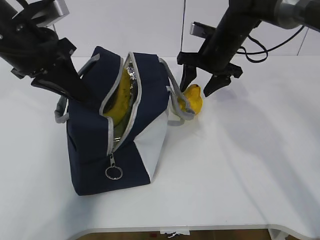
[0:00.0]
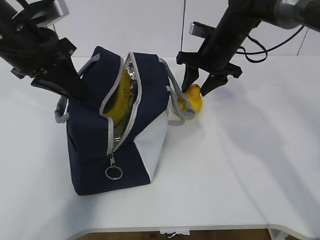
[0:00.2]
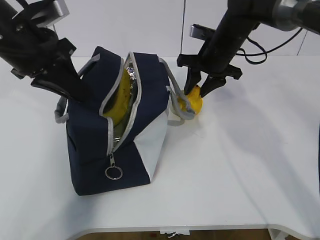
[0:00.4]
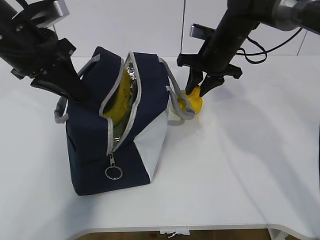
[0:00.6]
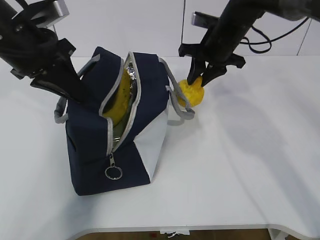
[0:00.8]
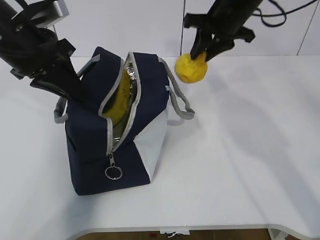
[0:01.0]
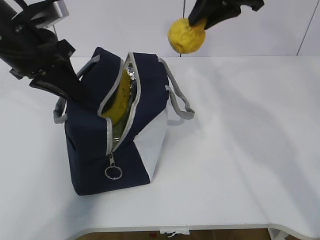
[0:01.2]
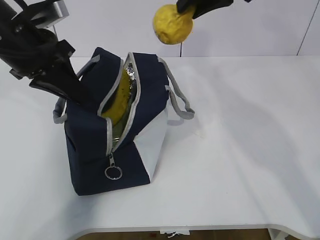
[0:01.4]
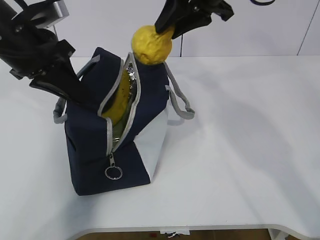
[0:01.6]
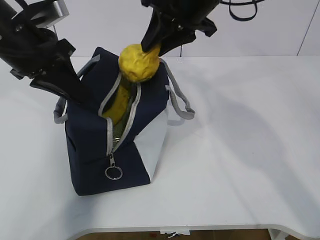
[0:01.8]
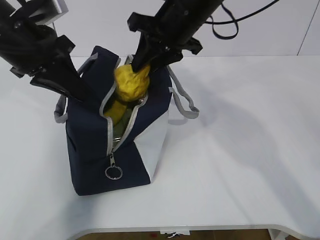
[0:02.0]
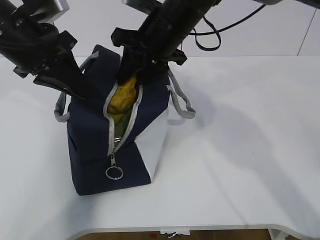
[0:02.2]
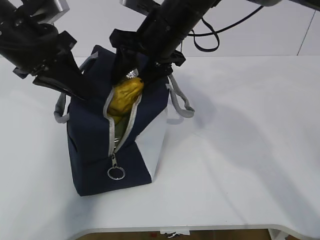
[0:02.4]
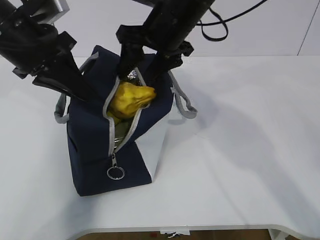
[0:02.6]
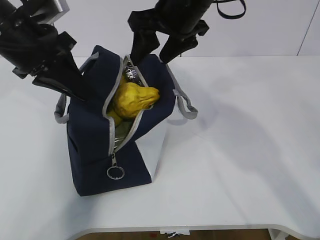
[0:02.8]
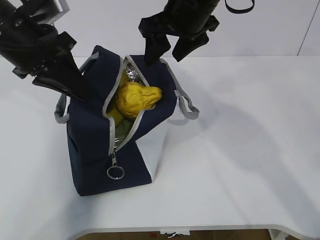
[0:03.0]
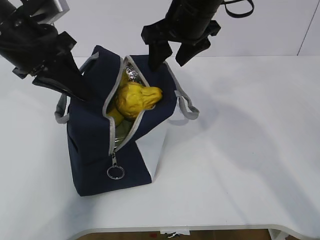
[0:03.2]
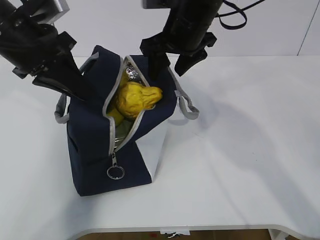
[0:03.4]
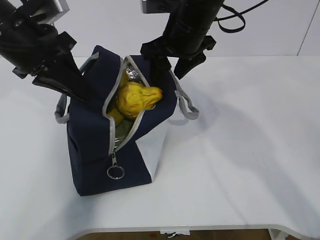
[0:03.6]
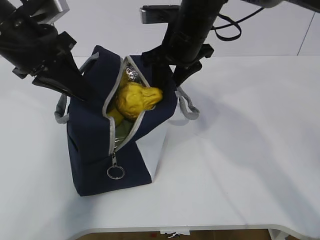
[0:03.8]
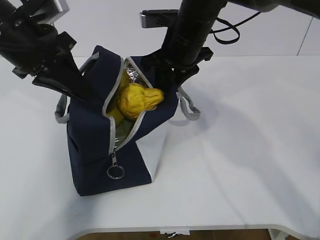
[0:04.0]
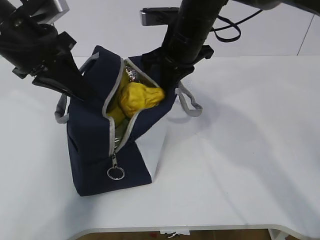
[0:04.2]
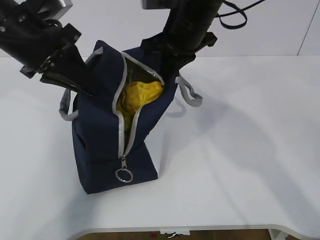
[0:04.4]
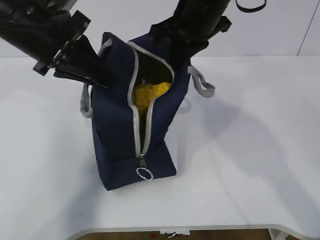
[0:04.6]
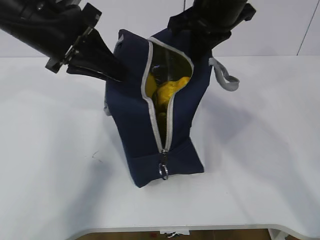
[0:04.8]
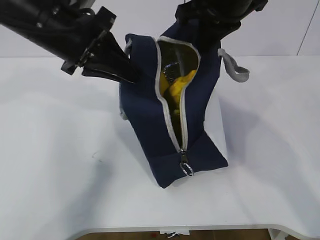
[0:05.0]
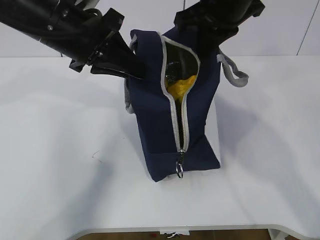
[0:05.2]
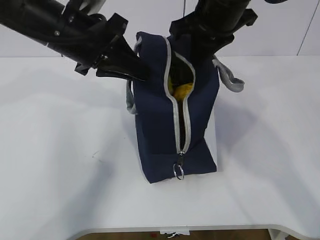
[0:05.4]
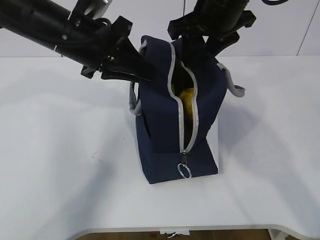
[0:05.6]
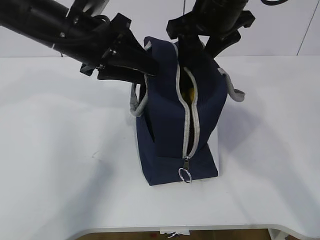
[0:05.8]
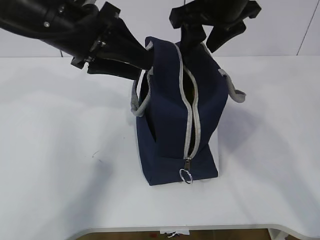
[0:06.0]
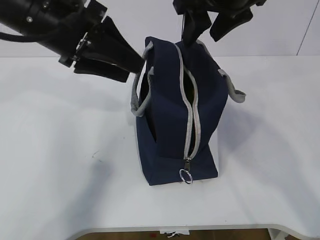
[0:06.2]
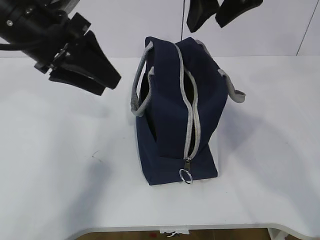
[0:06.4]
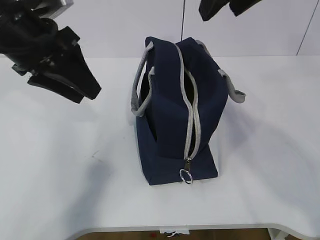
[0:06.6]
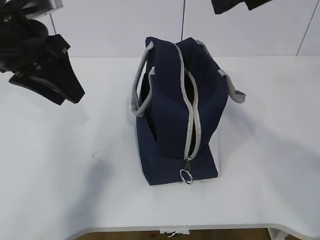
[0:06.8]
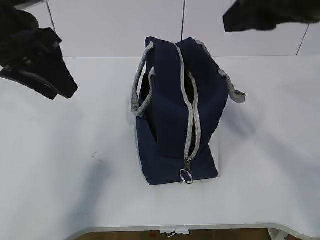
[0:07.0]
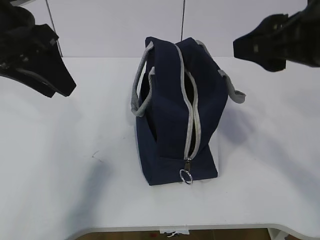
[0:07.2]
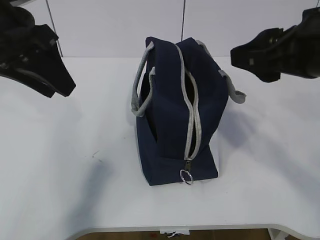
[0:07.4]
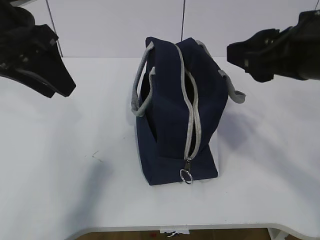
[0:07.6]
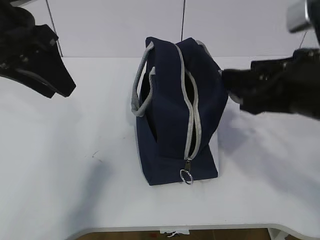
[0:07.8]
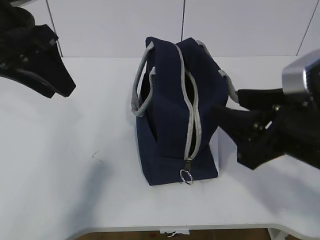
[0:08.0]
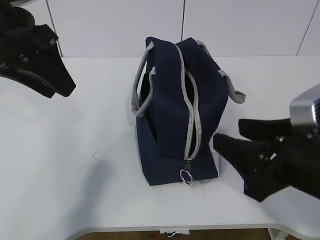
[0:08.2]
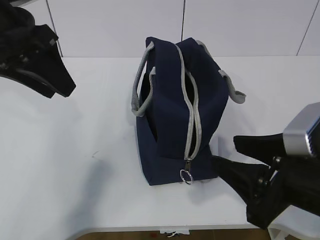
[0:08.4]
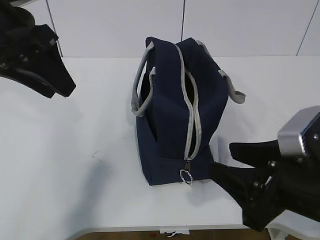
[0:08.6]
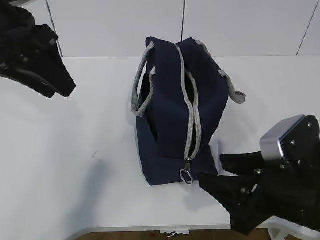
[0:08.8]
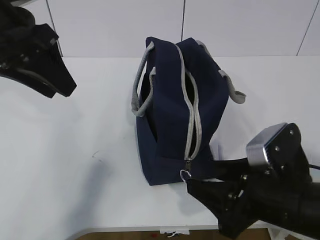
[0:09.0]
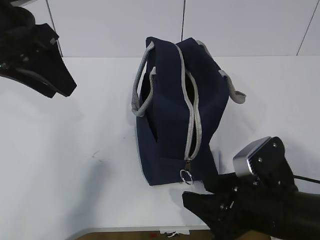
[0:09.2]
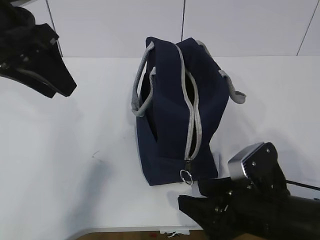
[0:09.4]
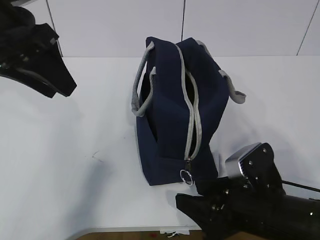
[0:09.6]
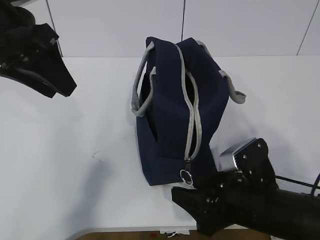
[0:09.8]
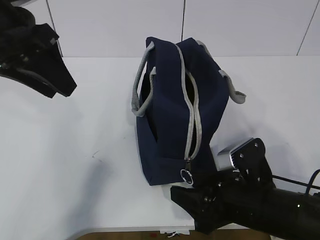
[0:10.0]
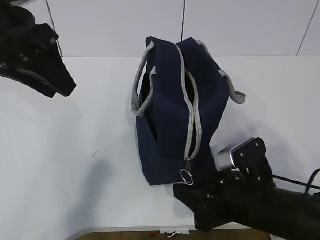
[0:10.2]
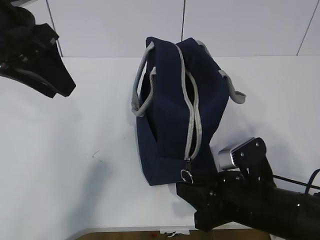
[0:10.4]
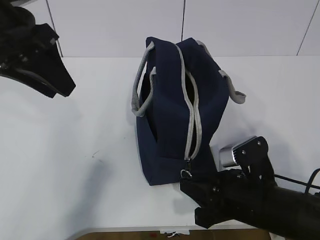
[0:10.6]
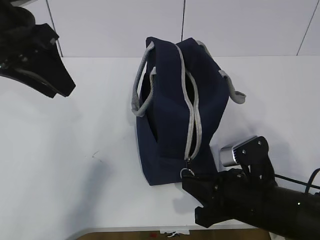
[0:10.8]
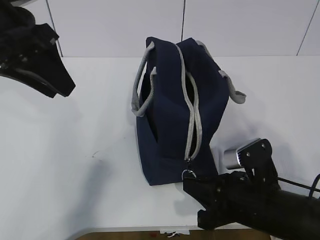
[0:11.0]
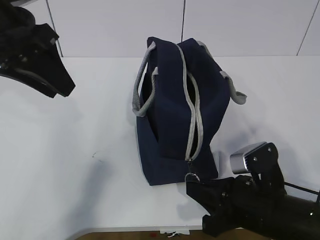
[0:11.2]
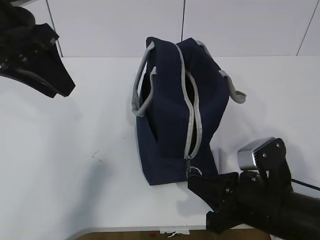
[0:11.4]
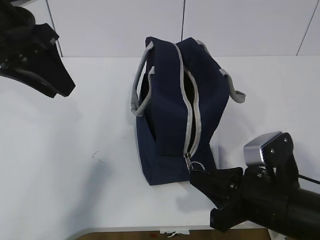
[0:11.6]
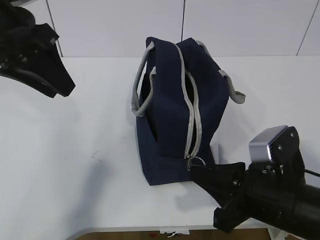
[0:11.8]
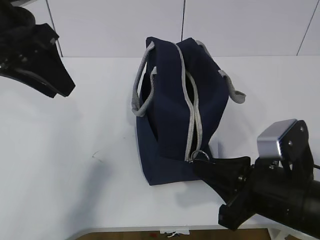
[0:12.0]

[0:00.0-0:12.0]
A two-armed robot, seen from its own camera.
Step, 0:00.0 to 0:00.8: Move the lunch bag to the right.
Step, 0:01.0 to 0:10.2: Grab the lunch bag with your left hand.
0:00.0 to 0:01.6: The right gripper heads upward and backward, covering about 15 cm, and closes.
0:01.6 to 0:03.0: The right gripper opens its fingers.
0:03.0 to 0:04.4: The right gripper closes its fingers.
0:04.4 to 0:06.0: The left gripper opens. Meanwhile the right gripper moves upward, about 5 cm, and opens up.
0:06.0 to 0:07.6: The left gripper is displaced to the left by roughly 5 cm. The right gripper heads backward and to the right, covering approximately 15 cm.
0:07.6 to 0:09.0: The right gripper travels downward by approximately 15 cm.
0:09.0 to 0:10.4: The right gripper shifts approximately 5 cm downward, and closes.
0:10.4 to 0:12.0: The right gripper moves upward, roughly 5 cm, and closes.

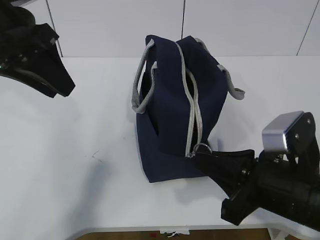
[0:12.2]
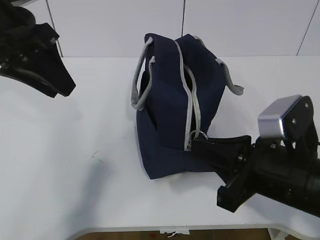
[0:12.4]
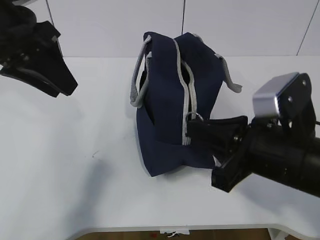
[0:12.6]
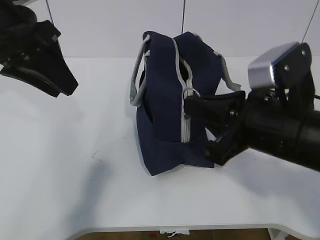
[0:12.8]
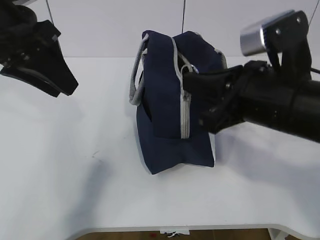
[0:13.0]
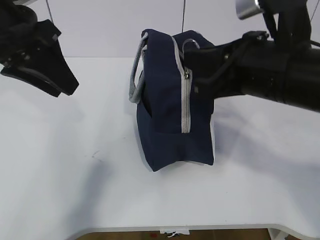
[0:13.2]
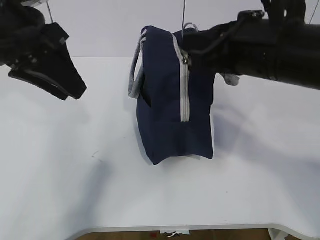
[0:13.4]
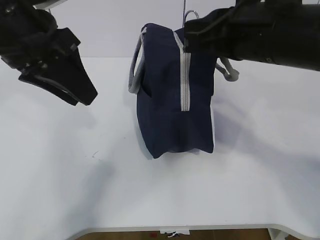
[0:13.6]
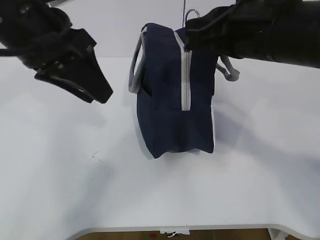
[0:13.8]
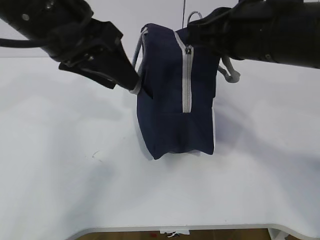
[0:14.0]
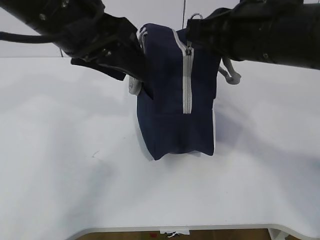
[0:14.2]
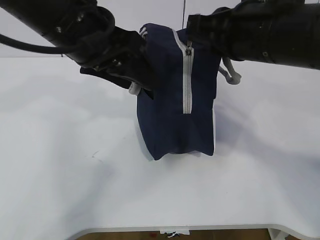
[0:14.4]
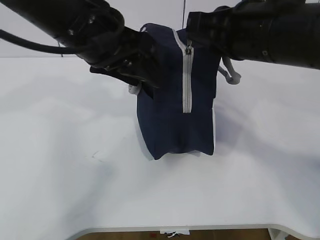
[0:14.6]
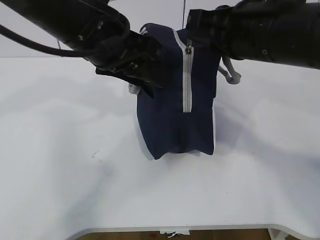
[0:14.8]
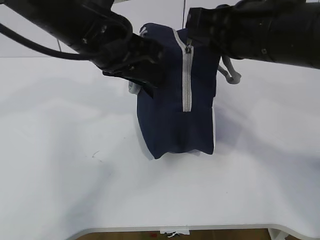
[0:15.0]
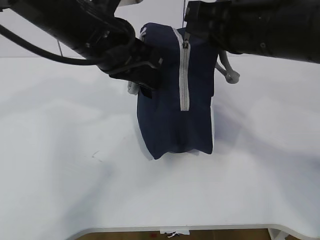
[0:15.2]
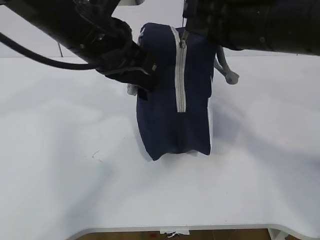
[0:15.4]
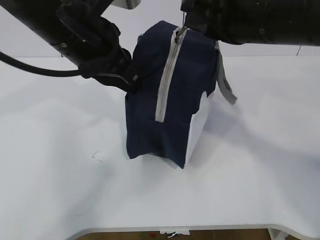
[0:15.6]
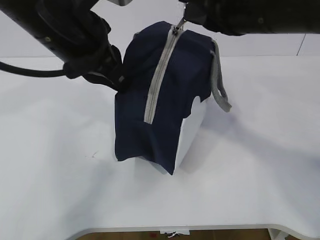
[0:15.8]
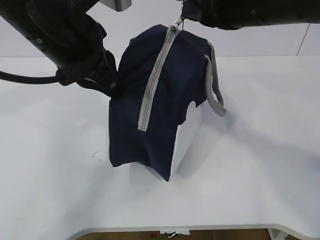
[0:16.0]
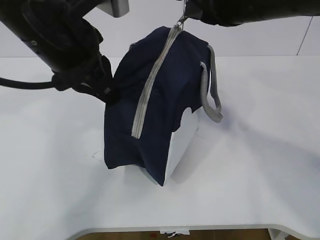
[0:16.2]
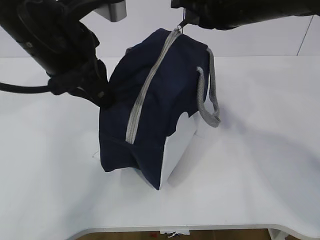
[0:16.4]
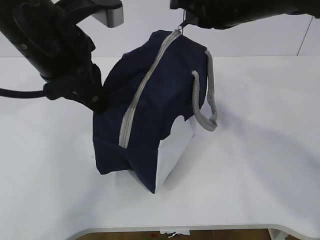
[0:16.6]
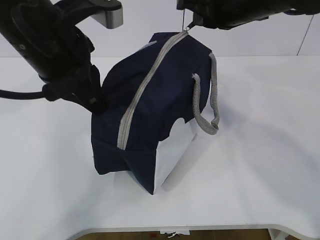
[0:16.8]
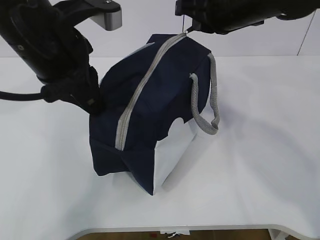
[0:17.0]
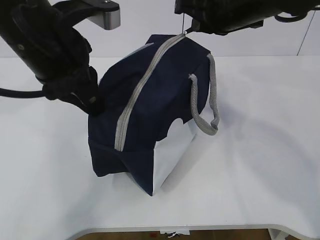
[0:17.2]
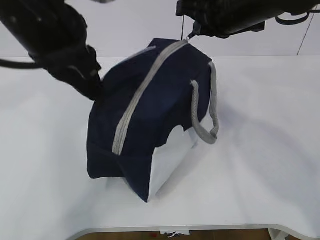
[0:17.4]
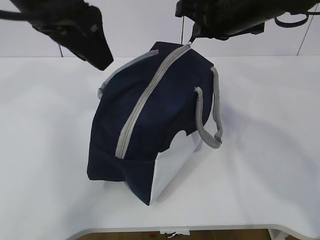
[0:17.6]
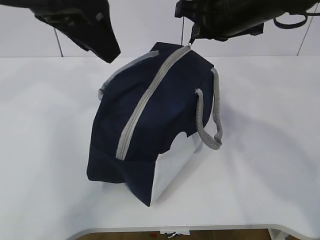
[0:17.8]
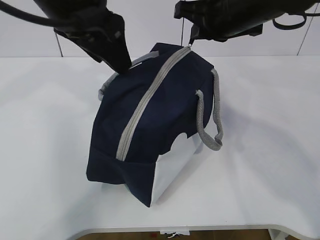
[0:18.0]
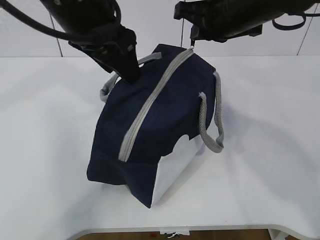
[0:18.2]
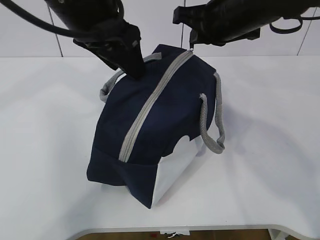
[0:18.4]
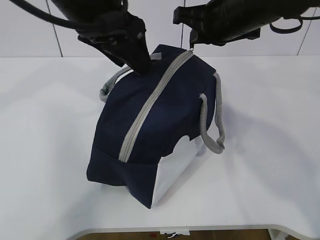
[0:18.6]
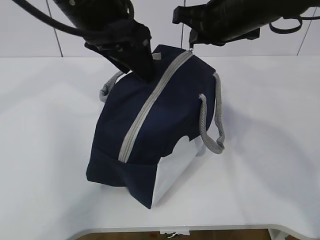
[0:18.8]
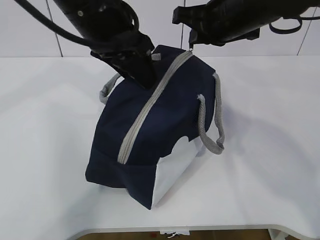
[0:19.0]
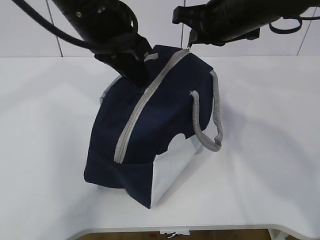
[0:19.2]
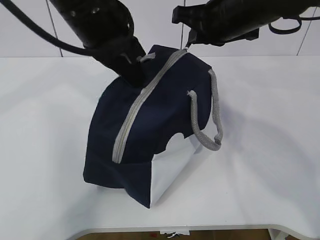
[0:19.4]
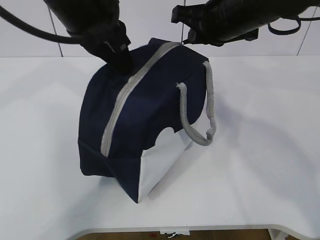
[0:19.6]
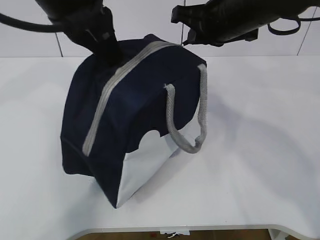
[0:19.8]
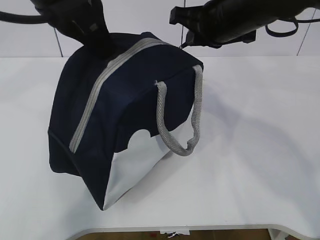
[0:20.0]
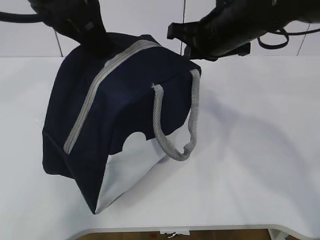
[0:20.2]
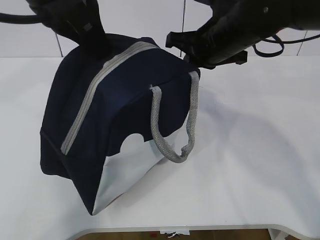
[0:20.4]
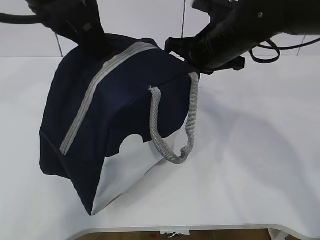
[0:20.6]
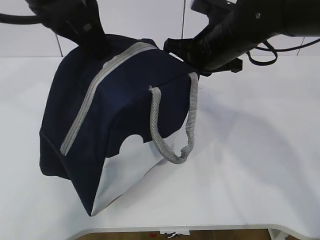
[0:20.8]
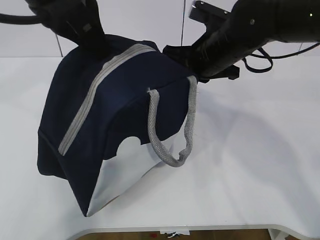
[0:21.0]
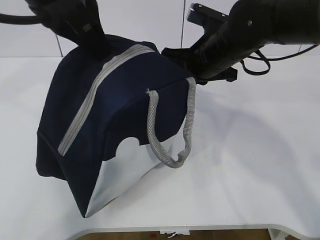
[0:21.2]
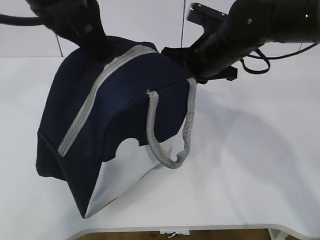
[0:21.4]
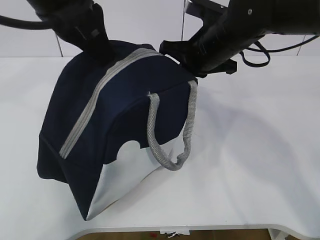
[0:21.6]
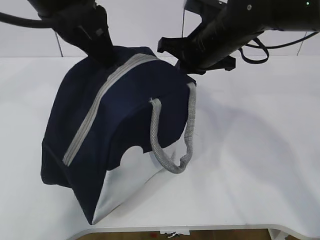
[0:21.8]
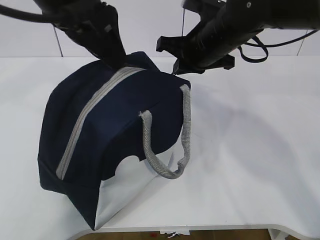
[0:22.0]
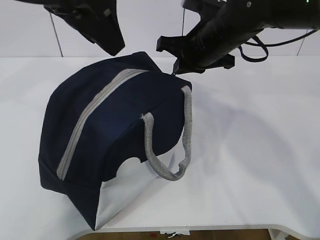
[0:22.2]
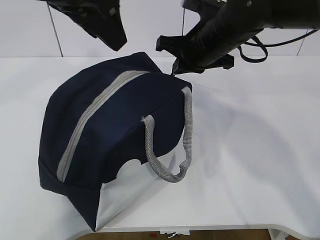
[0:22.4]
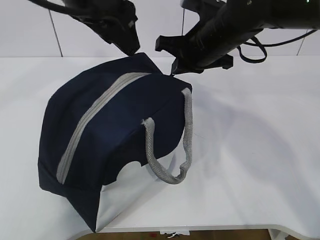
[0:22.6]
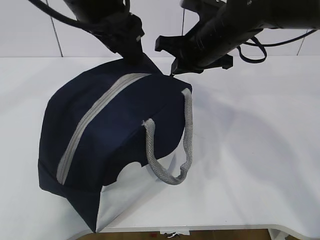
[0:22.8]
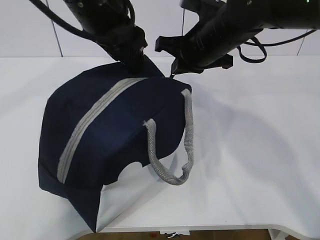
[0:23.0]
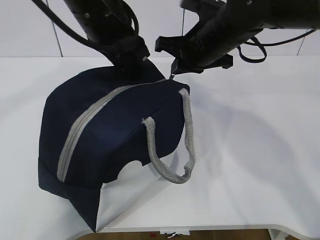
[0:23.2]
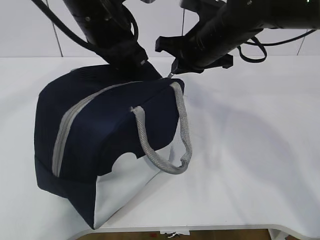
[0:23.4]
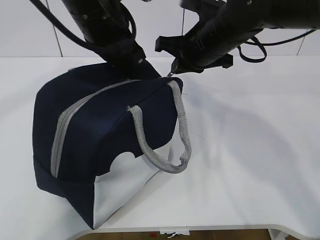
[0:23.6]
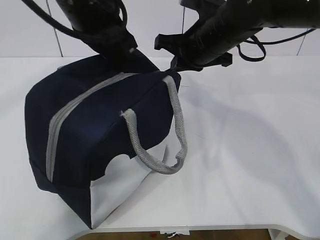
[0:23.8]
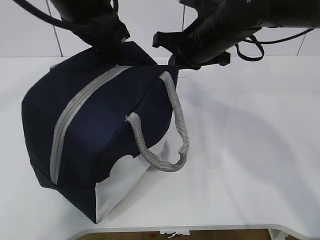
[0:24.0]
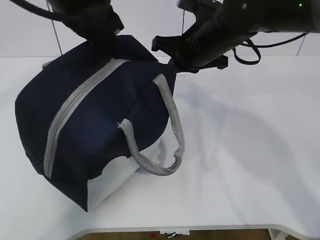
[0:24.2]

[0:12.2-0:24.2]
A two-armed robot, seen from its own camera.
Step, 0:12.2 to 0:16.6: Pull the zipper with your right hand.
Step, 0:16.8 to 0:17.8: Grab the lunch bag with your left hand.
0:12.2 to 0:13.8: The left gripper heads to the right, covering approximately 5 cm. The right gripper shifts roughly 15 cm upward and forward.
0:13.8 to 0:15.2: The left gripper is displaced to the right by approximately 5 cm, and opens and closes again.
0:15.2 to 0:16.6: The right gripper travels forward by roughly 5 cm; the left gripper changes place by about 5 cm.
0:16.6 to 0:18.2: The left gripper changes place by roughly 5 cm, and opens up.
0:18.2 to 0:19.8: The left gripper closes up.
0:19.8 to 0:21.2: The right gripper heads downward, covering roughly 5 cm.
0:21.2 to 0:22.6: The left gripper opens its fingers.
0:22.6 to 0:24.2: The left gripper closes its fingers.
